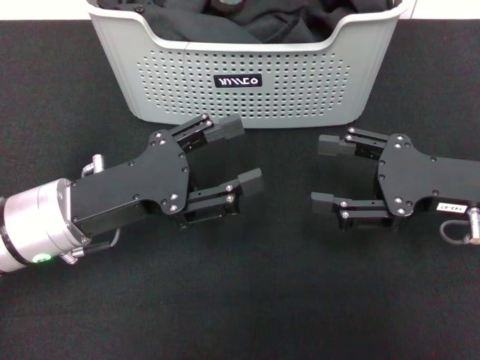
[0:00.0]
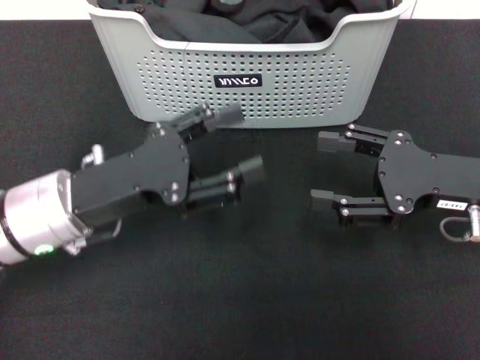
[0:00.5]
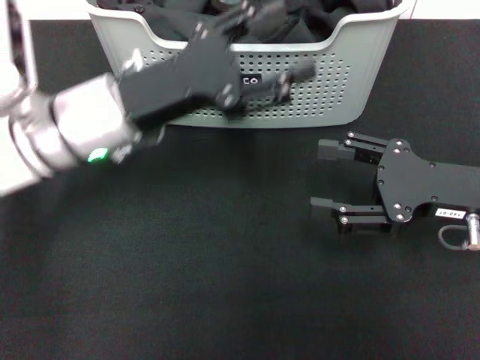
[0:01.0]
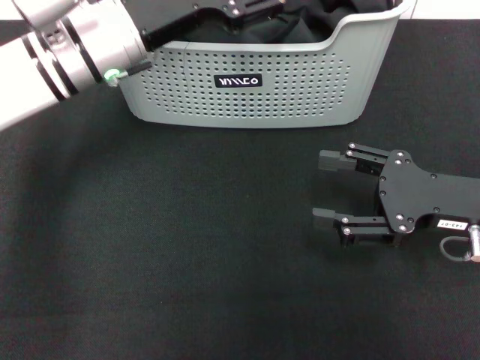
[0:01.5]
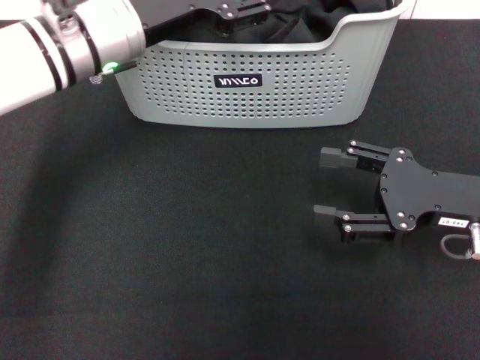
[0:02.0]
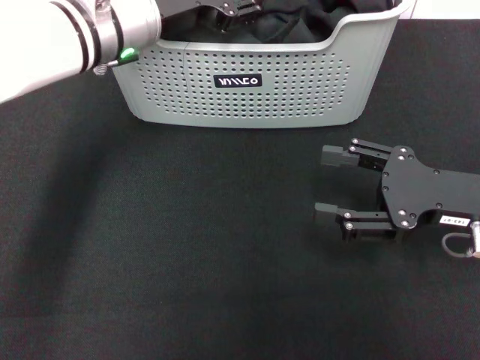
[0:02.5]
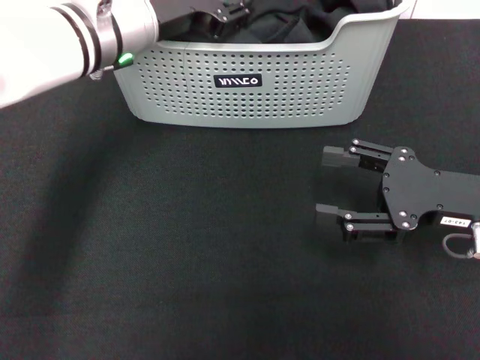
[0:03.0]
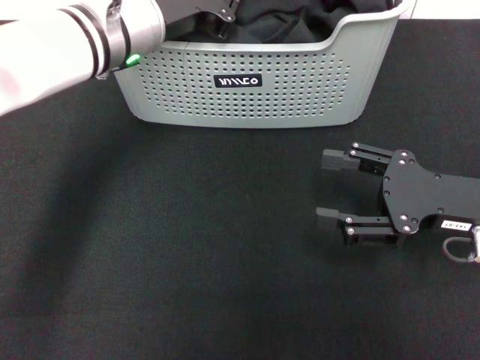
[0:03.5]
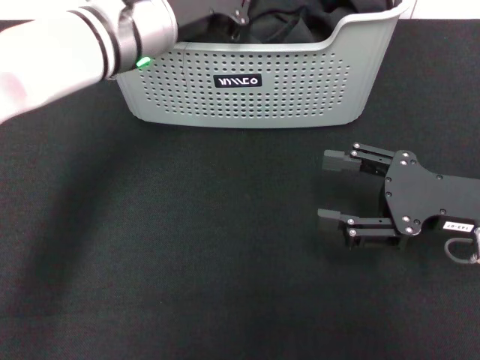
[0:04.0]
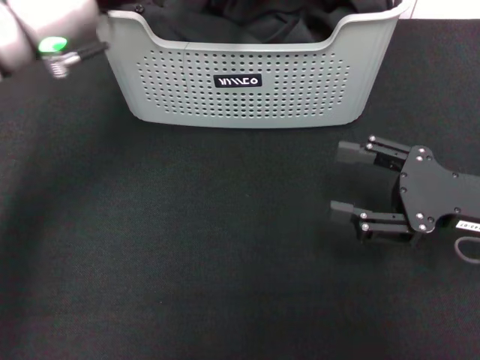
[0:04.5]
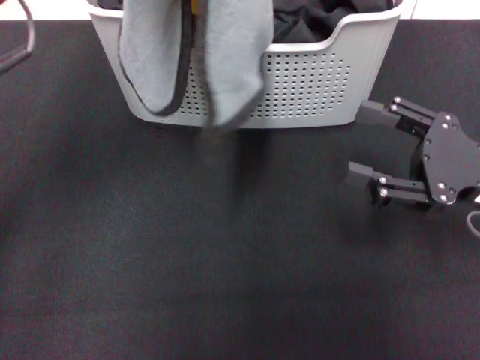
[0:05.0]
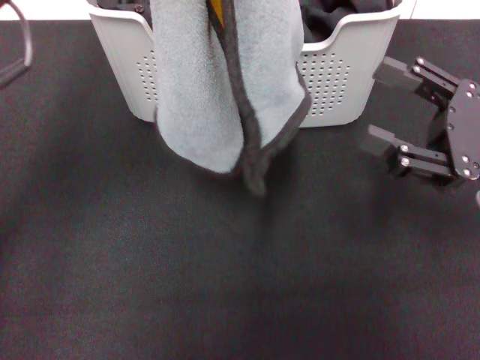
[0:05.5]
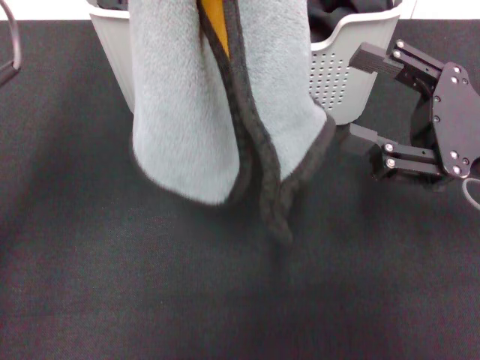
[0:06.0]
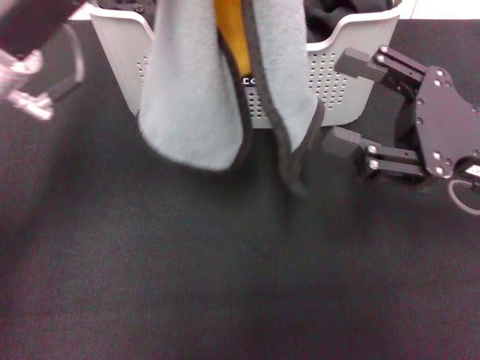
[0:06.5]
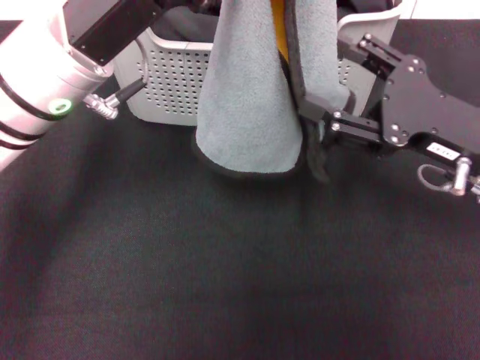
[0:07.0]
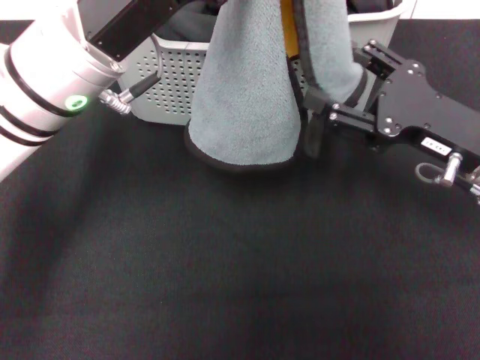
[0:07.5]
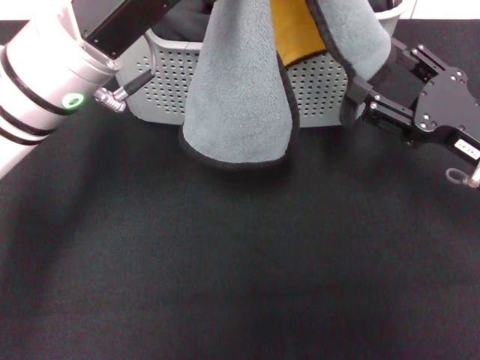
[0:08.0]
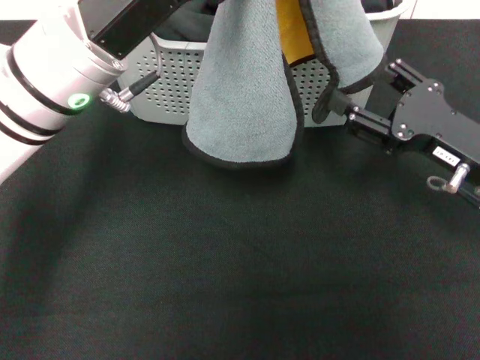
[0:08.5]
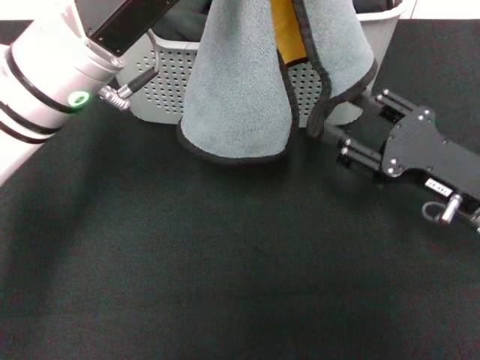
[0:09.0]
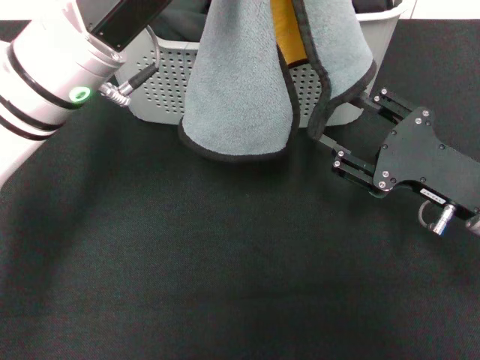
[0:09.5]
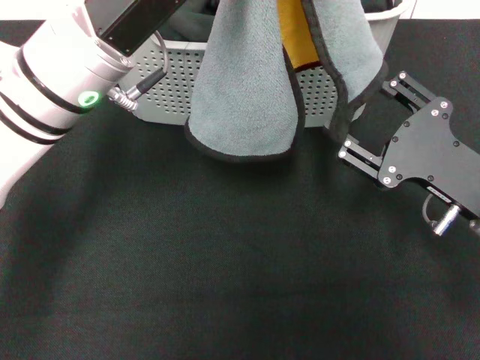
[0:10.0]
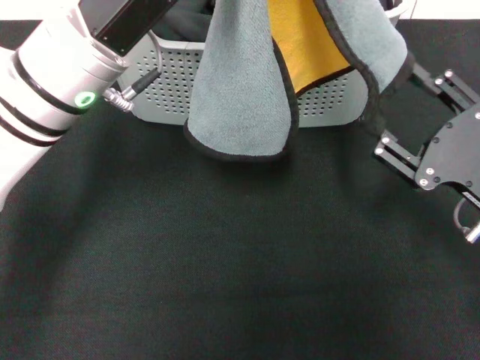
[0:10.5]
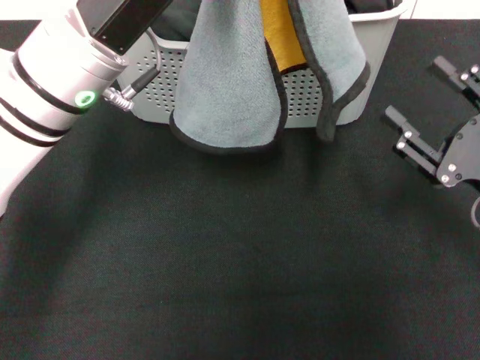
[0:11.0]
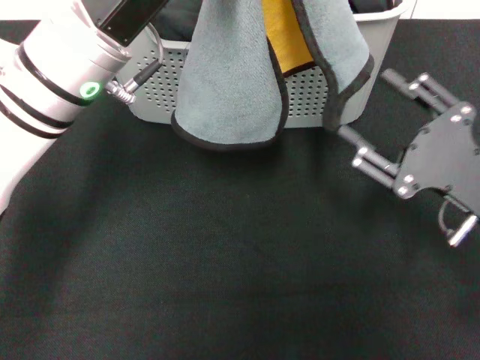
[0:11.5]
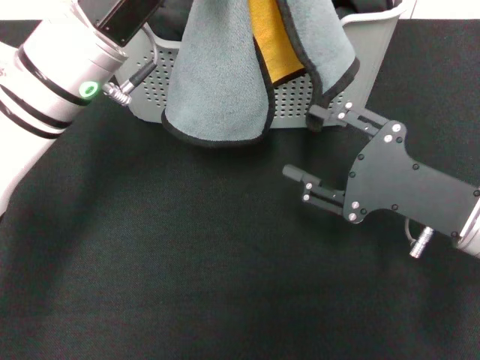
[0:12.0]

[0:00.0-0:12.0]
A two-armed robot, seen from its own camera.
Task of the whole recording: pick up the towel from the storage box and lay it flat on the black tablecloth.
Step, 0:00.0 to 0:03.5: Pick up a towel with the left gripper.
0:00.0 to 0:02.0: The left gripper shifts some 15 cm forward and upward.
0:02.0 to 0:04.0: The left gripper closes its fingers.
0:04.0 to 0:06.0: The left gripper moves backward, to the left and upward, some 20 cm.
0:06.0 to 0:08.0: The left gripper goes about 10 cm downward, forward and to the right.

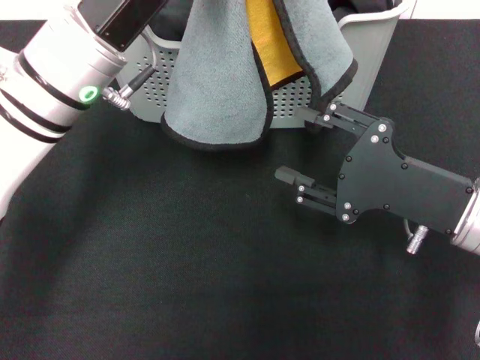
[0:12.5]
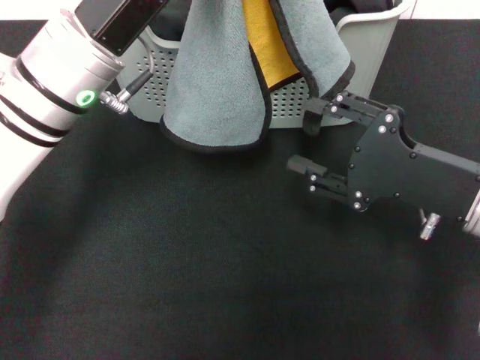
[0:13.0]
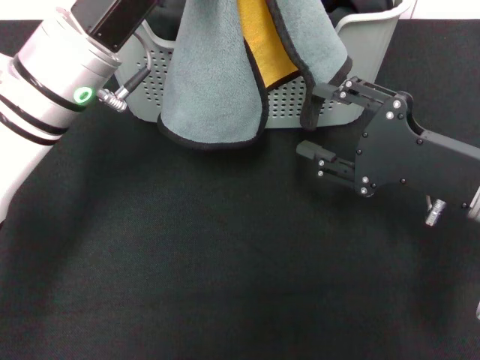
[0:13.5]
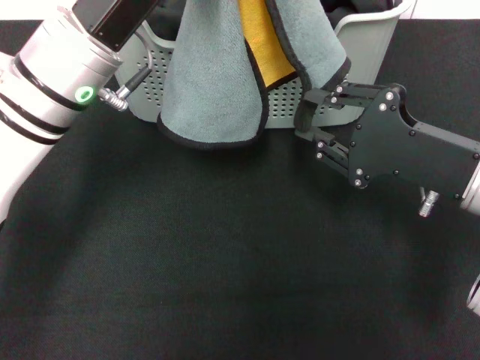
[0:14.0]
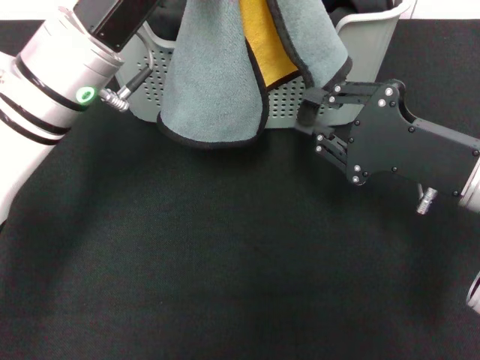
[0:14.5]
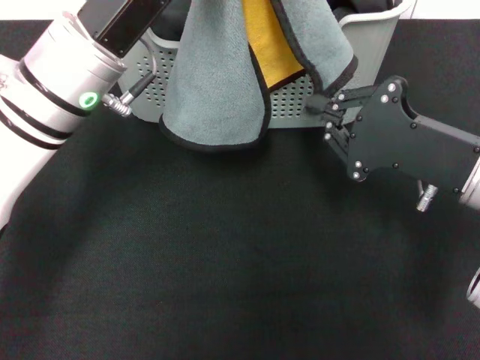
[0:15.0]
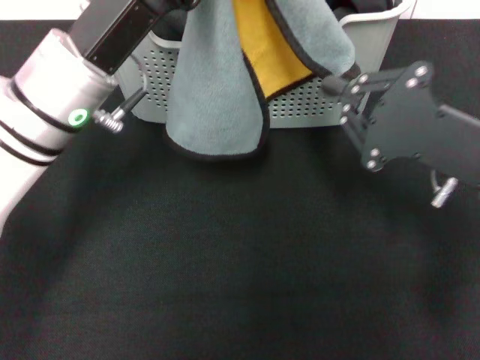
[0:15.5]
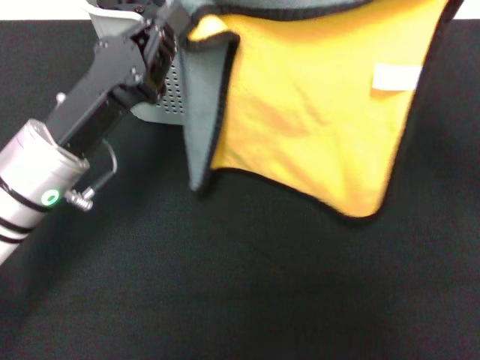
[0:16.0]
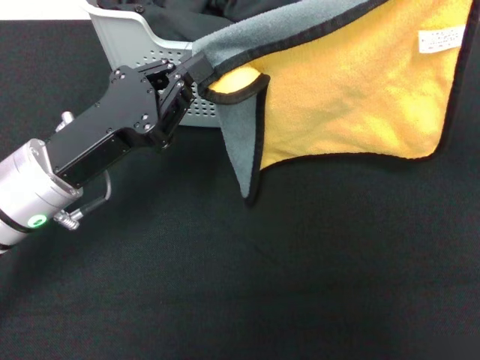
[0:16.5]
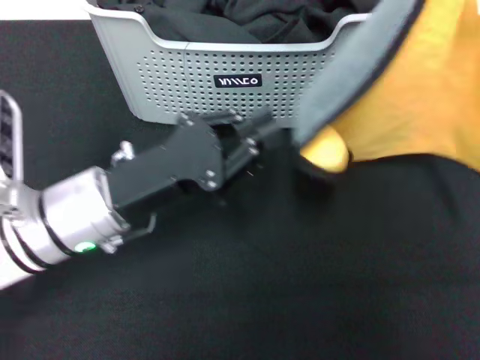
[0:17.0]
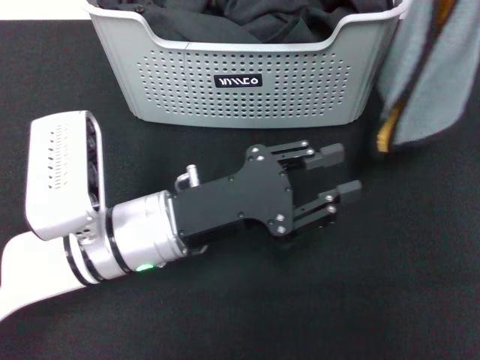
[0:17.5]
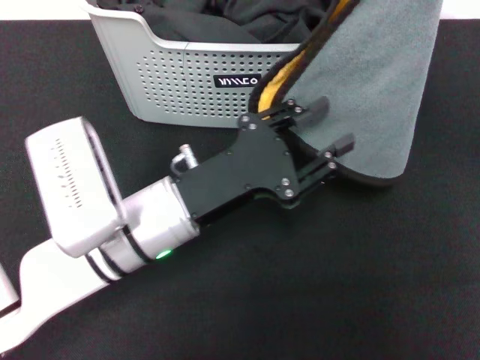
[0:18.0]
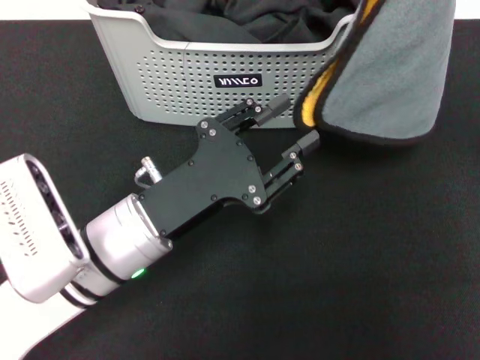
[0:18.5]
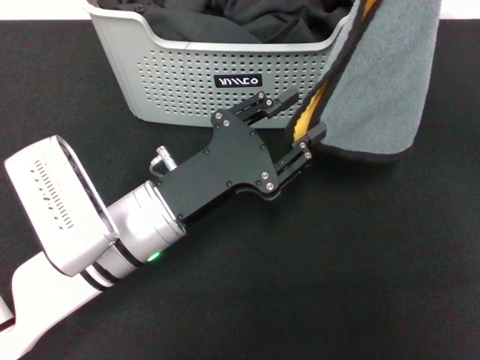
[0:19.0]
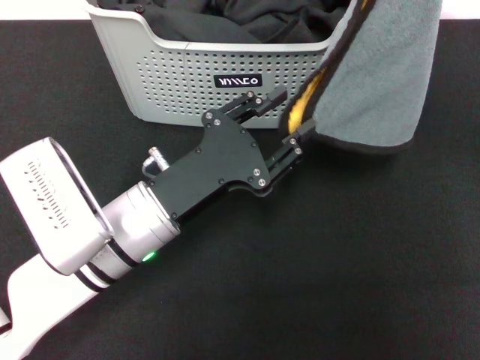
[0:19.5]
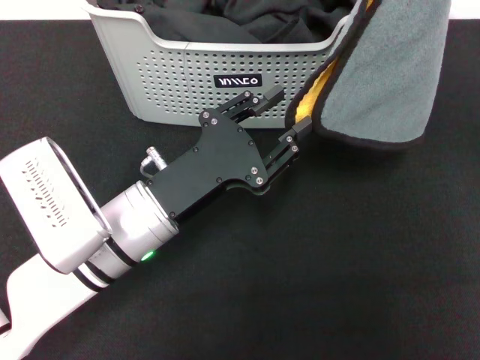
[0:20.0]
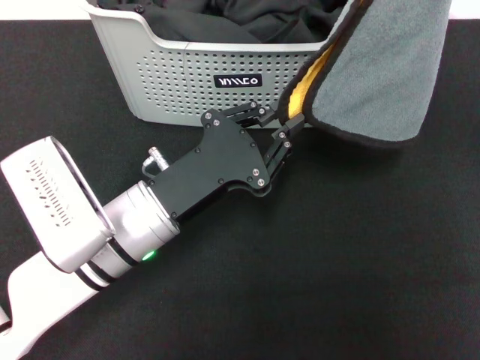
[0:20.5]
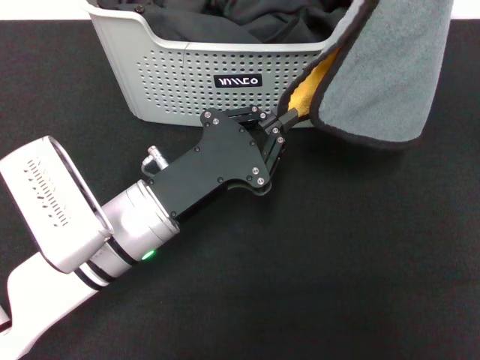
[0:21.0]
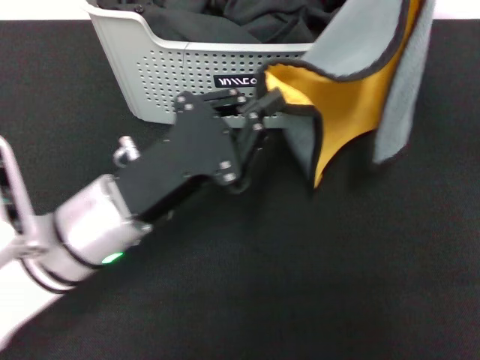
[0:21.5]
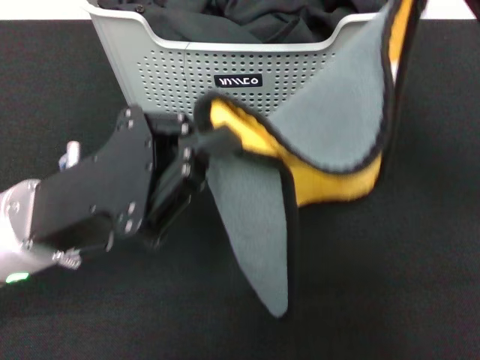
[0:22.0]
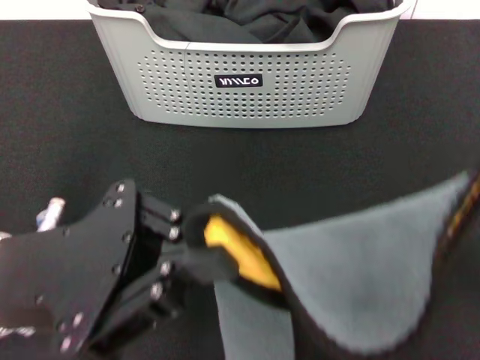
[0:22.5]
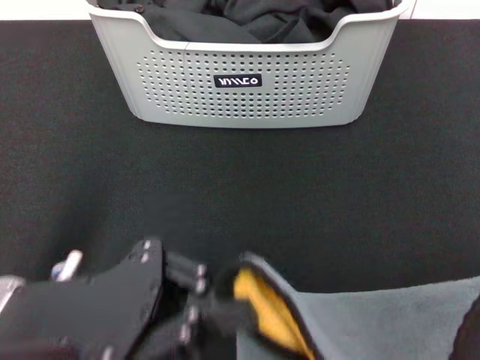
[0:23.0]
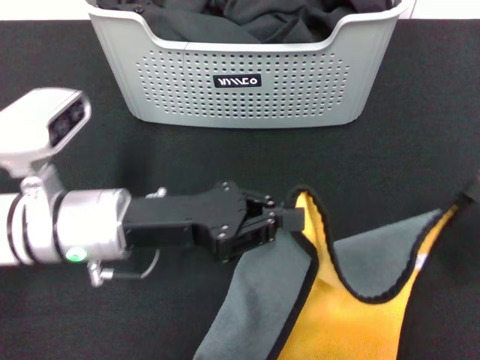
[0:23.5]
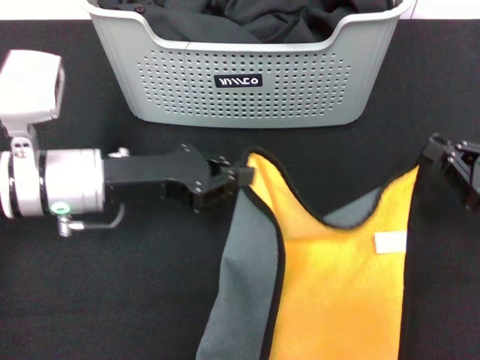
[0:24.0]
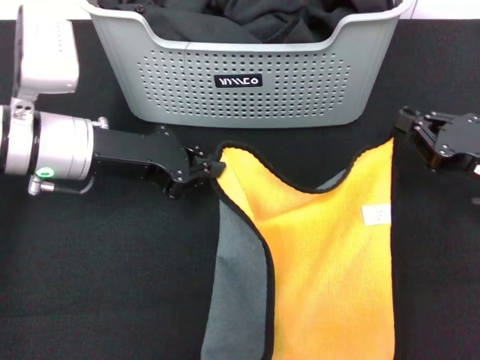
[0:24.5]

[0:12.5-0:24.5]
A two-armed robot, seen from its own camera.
Task of the whole recording: pick up the towel from the storage box and lay it flat on the black tablecloth.
Step, 0:12.5 to 0:15.0: Spread the towel flat with the left gripper.
0:12.5 to 0:14.5: The right gripper closes up.
0:14.5 to 0:16.5: The left gripper is displaced downward and backward by roughly 10 cm. Meanwhile the right gripper is displaced to the right and upward by roughly 10 cm, and closes up.
0:16.5 to 0:18.5: The right gripper goes some 5 cm upward, while the left gripper goes about 5 cm to the right, and opens up.
0:18.5 to 0:20.5: The grippers move only a little.
0:20.5 to 0:22.5: The right gripper shifts some 15 cm backward. The left gripper travels upward, to the left and backward by roughly 15 cm, and closes up.
0:22.5 to 0:24.5: The left gripper moves forward, about 15 cm. The right gripper shifts some 20 cm downward and forward.

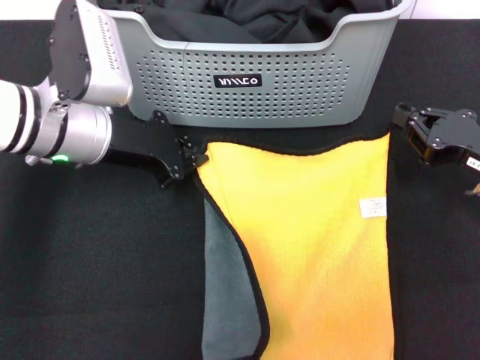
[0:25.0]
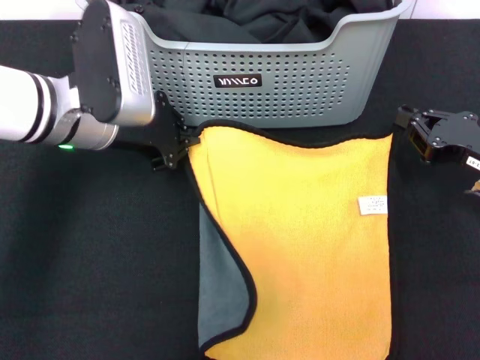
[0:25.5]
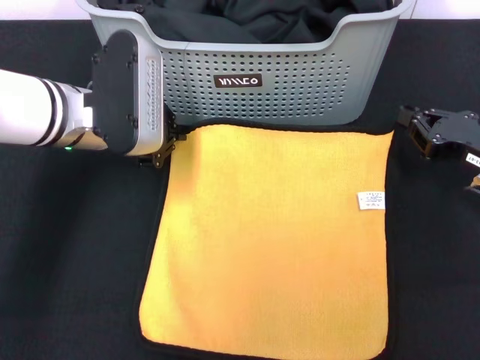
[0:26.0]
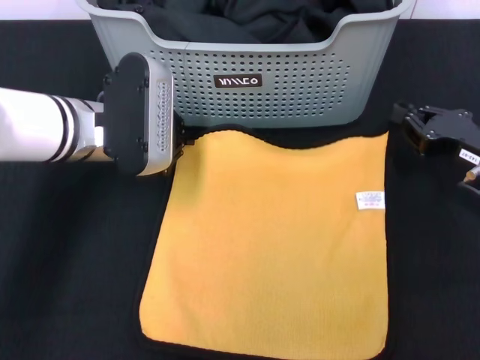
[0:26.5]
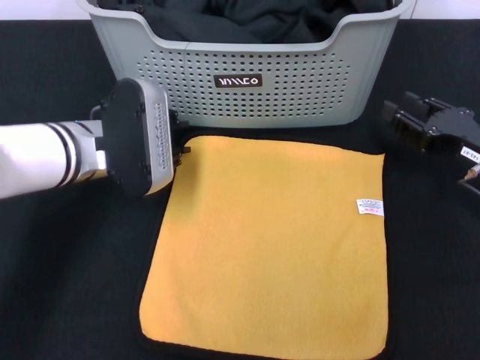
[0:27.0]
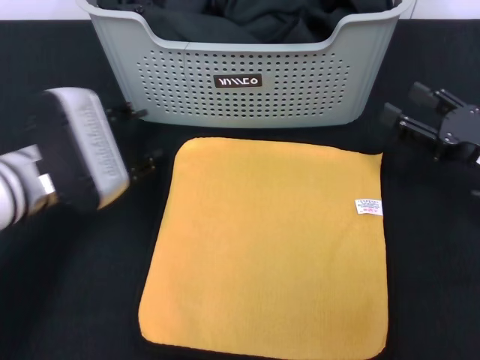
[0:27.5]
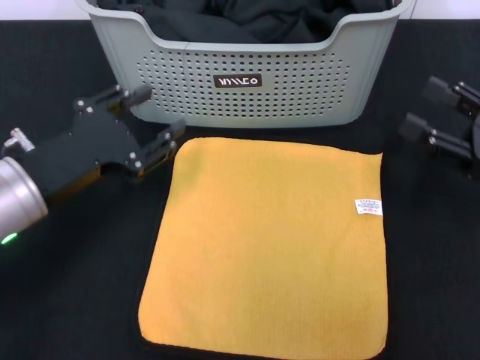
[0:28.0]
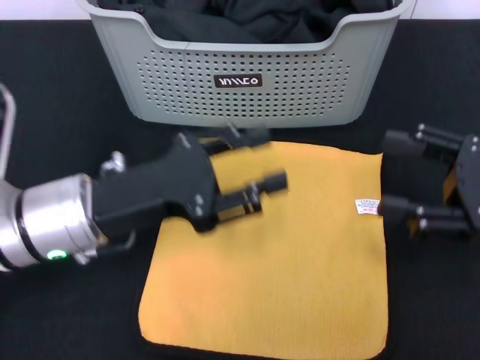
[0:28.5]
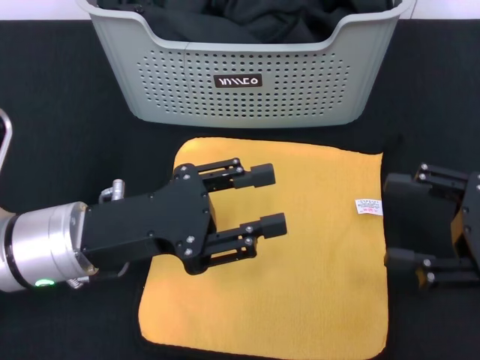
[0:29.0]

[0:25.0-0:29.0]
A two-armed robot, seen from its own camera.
Task of the whole recording: pick up the towel from the storage box and lay it flat on the black tablecloth.
0:27.0 to 0:29.0: The right gripper moves backward and upward, some 10 cm, and opens up. Meanwhile the left gripper moves backward, approximately 10 cm, and opens.
